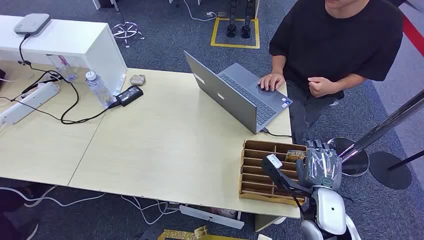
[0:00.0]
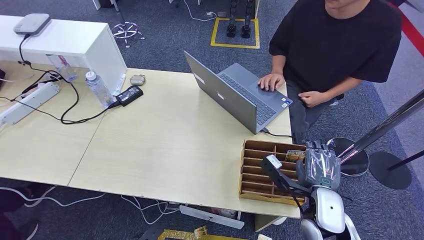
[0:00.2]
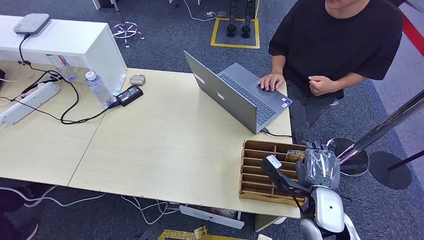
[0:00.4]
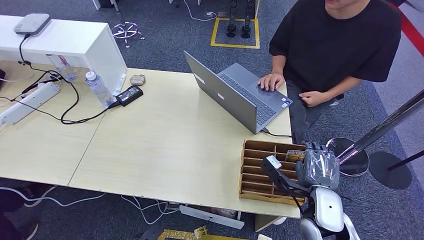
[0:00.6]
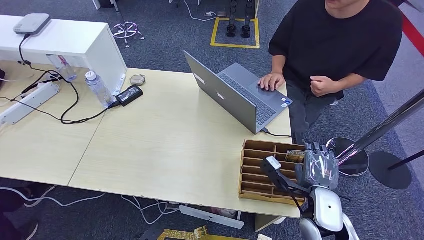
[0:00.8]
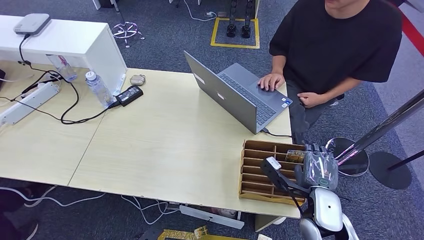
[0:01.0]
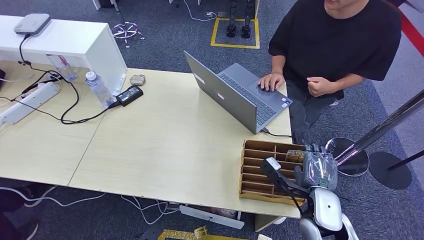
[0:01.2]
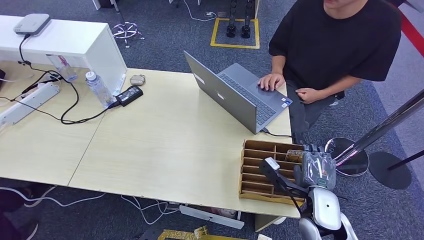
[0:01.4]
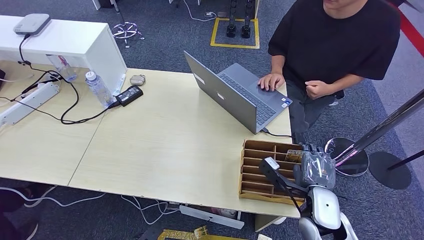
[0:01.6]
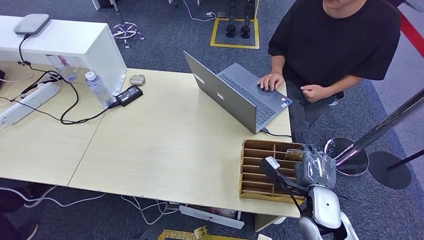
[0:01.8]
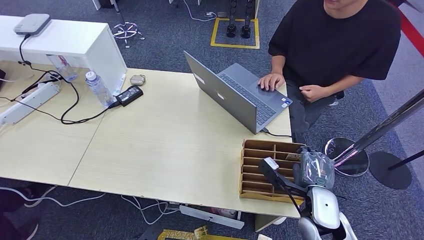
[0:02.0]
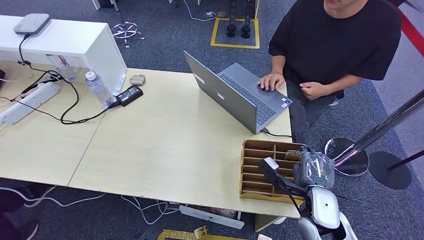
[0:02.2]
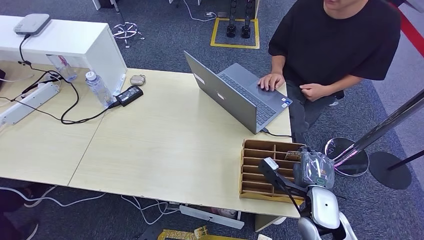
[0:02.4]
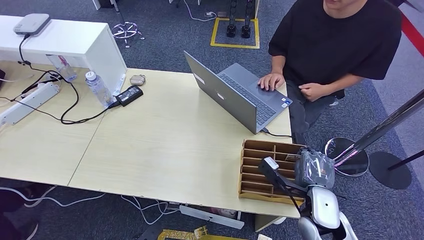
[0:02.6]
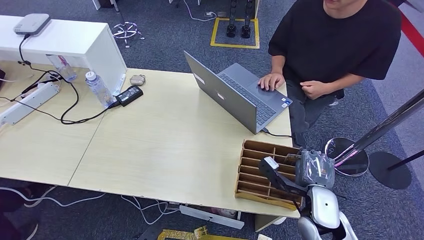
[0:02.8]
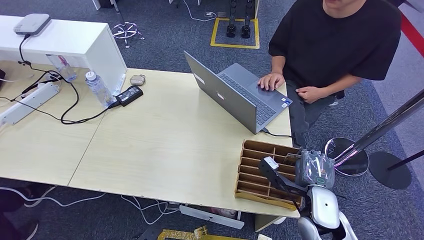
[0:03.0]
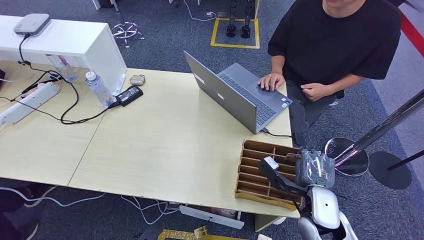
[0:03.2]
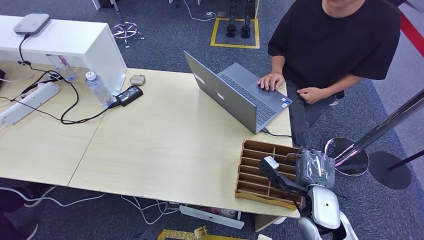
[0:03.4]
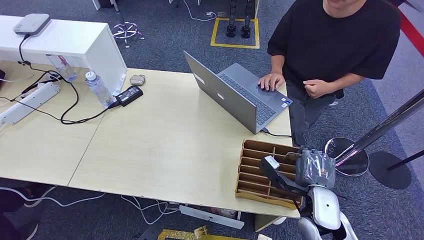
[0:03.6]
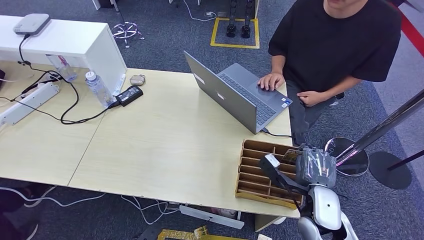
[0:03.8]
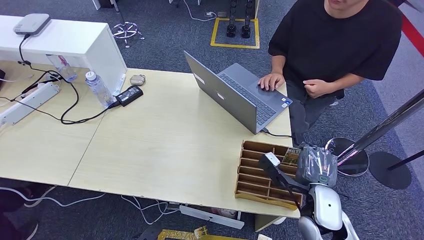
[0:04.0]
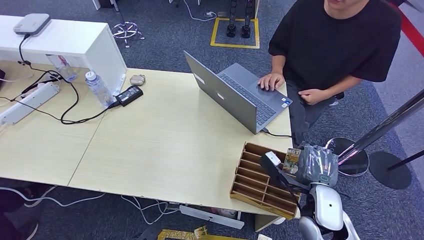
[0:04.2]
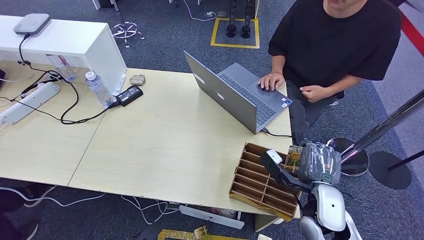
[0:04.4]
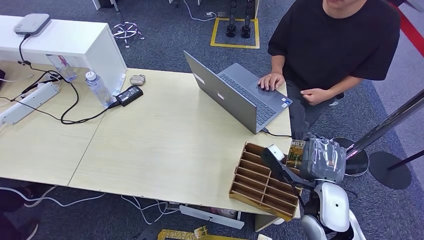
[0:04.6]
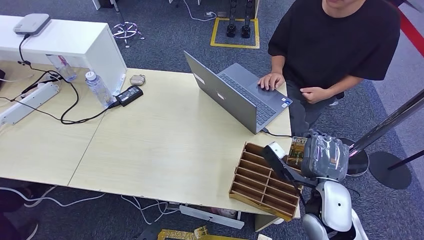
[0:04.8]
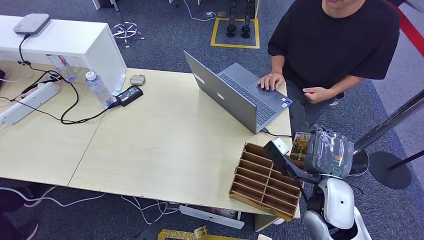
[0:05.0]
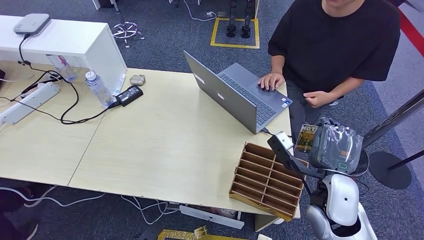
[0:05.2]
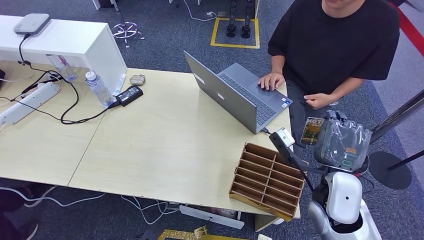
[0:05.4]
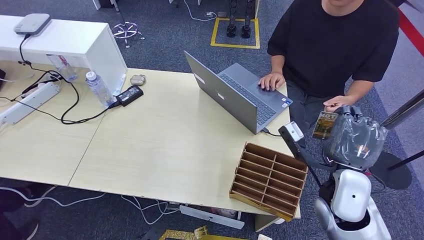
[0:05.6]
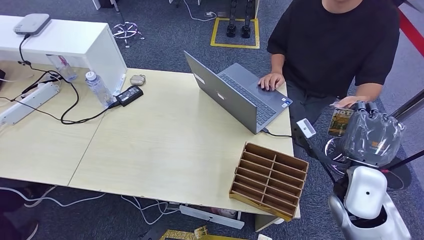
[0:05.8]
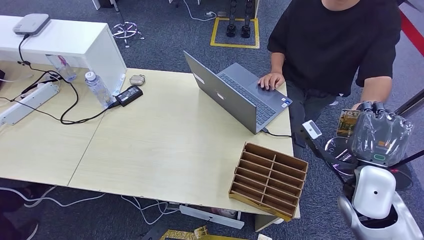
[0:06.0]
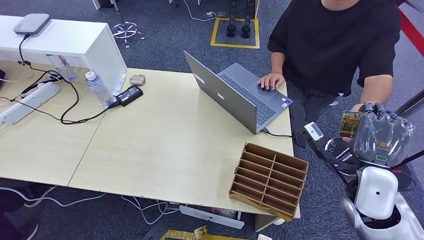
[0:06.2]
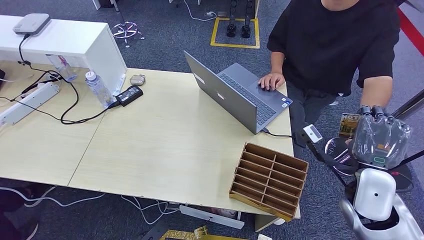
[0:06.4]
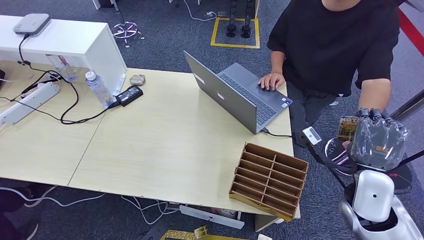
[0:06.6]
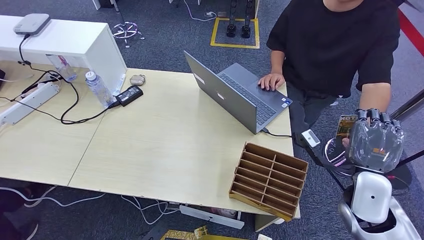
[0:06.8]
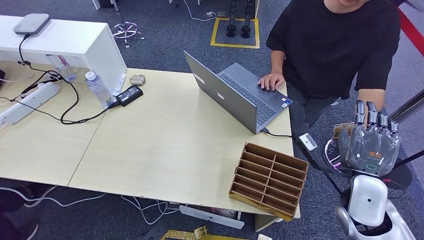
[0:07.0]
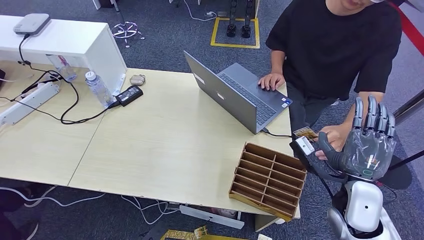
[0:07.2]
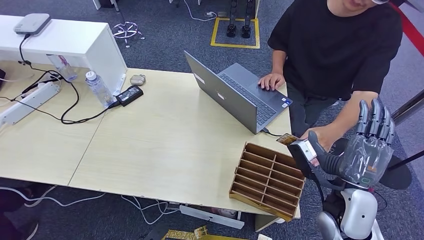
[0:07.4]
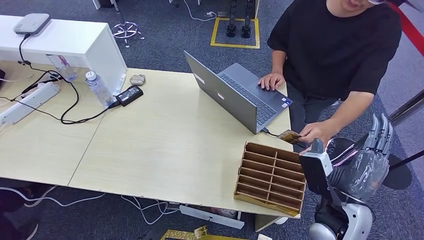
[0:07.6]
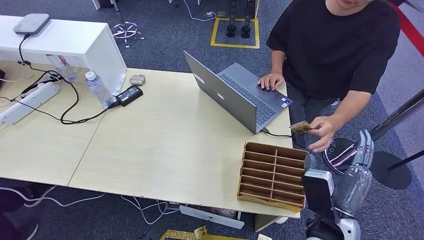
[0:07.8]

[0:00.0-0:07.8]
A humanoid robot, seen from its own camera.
Step, 0:00.0 to 0:05.0: Pick up the key card from the card box.
Step, 0:05.2 to 0:07.8: Hand the key card to the target.
0:01.6 to 0:03.2: Both hands stay put.
0:03.2 to 0:04.6: There are only small adjustments of the hands.
0:04.6 to 0:06.2: The right hand is displaced to the right and upward by roughly 10 cm.
0:06.2 to 0:07.8: The right hand moves backward, downward and to the left, roughly 10 cm.
